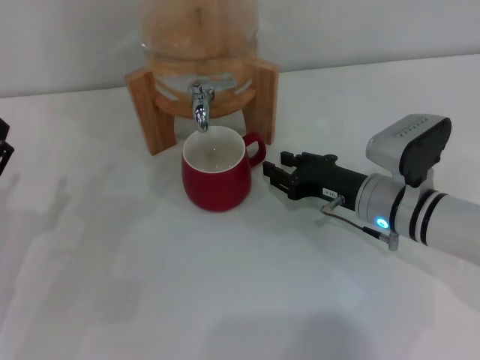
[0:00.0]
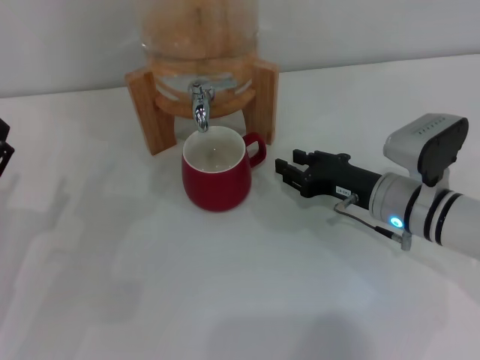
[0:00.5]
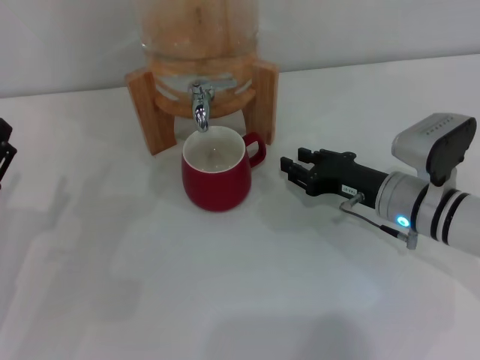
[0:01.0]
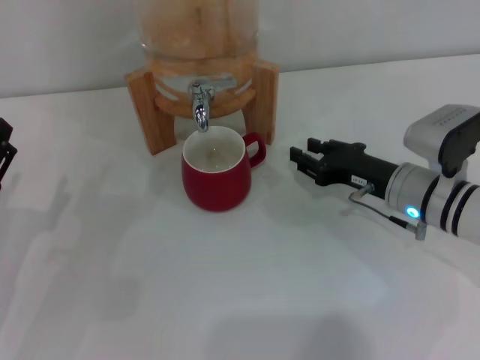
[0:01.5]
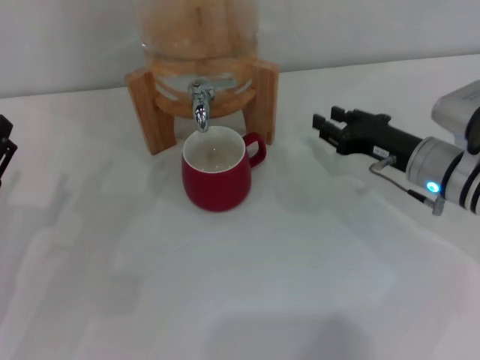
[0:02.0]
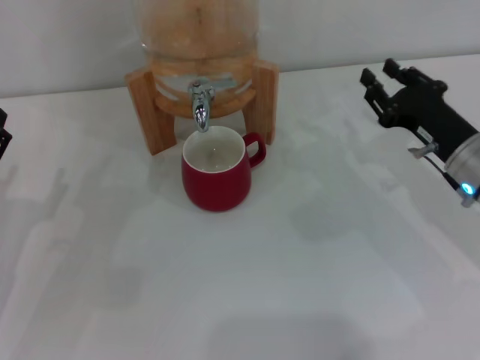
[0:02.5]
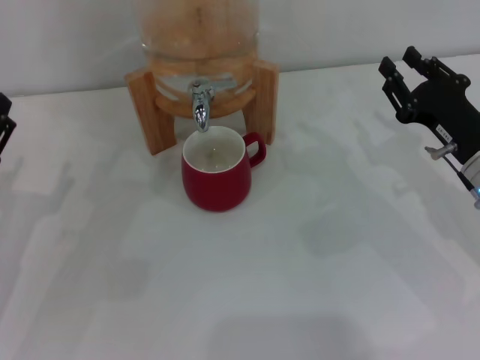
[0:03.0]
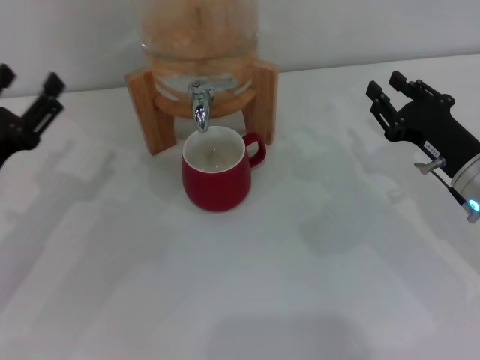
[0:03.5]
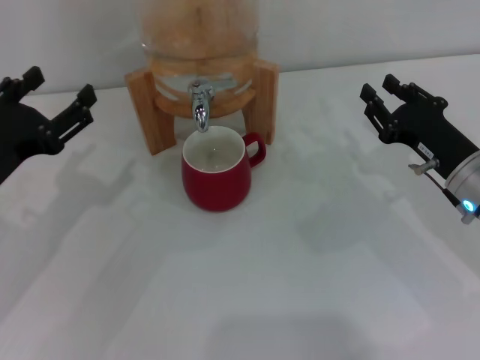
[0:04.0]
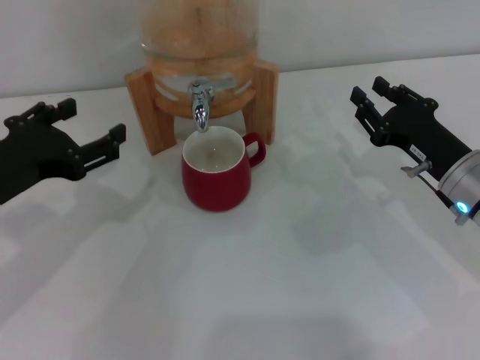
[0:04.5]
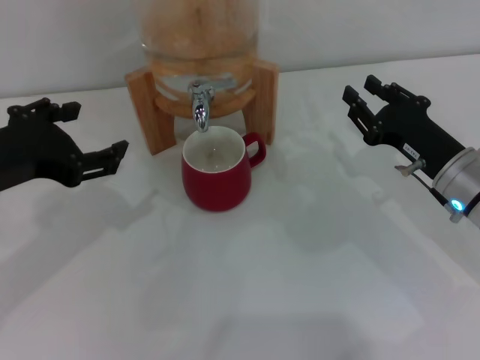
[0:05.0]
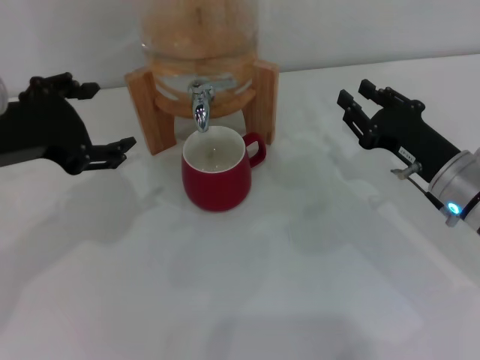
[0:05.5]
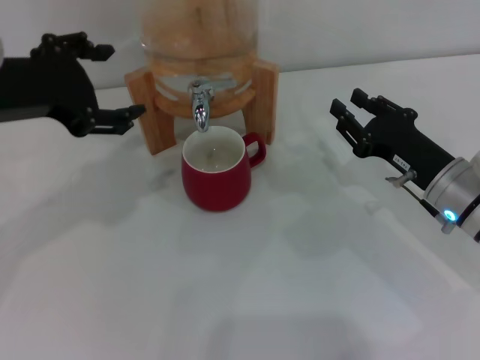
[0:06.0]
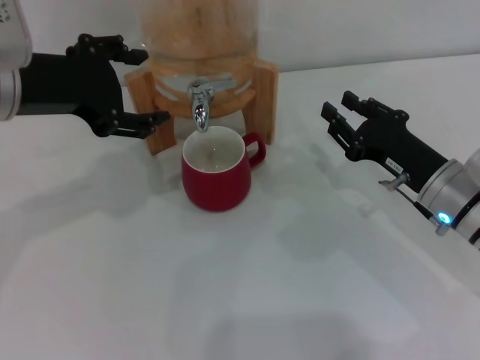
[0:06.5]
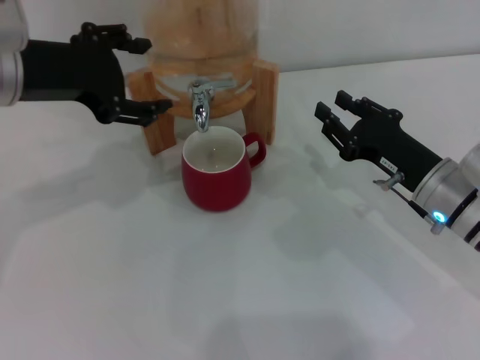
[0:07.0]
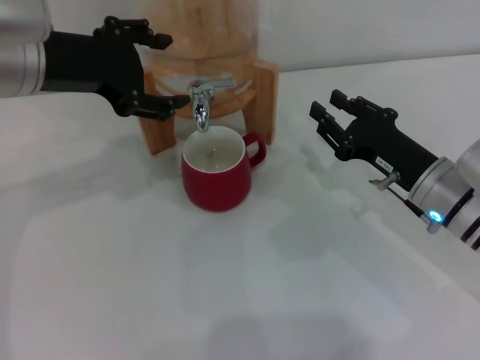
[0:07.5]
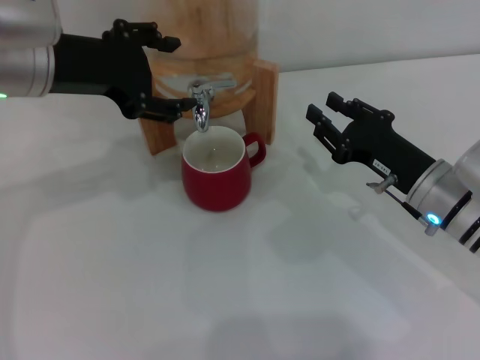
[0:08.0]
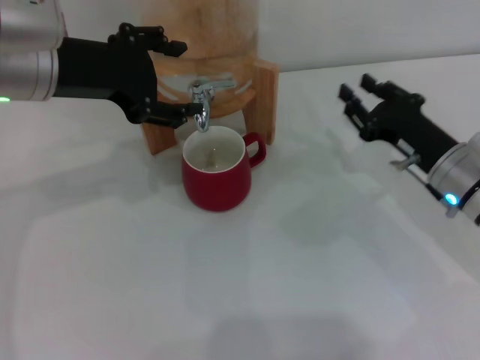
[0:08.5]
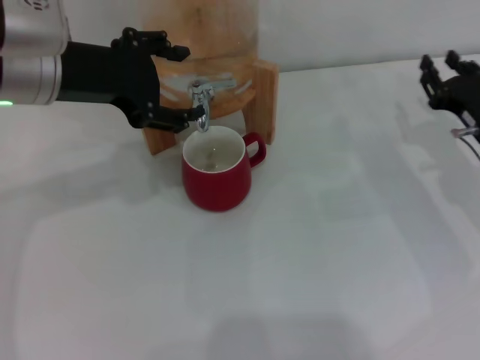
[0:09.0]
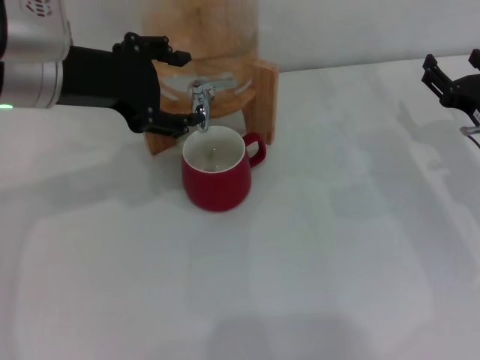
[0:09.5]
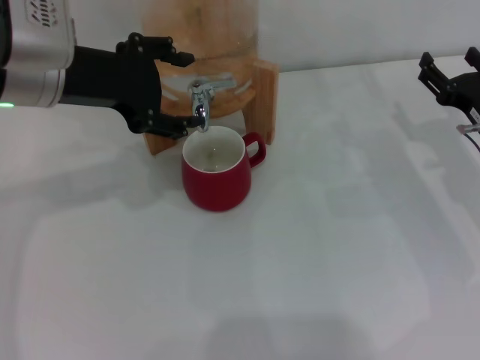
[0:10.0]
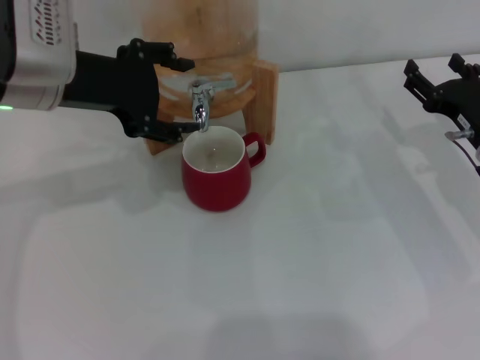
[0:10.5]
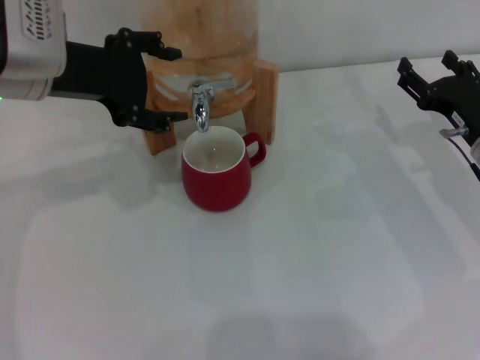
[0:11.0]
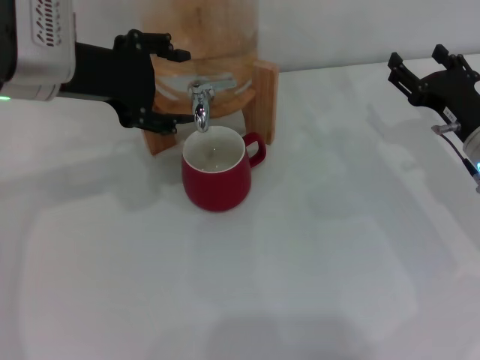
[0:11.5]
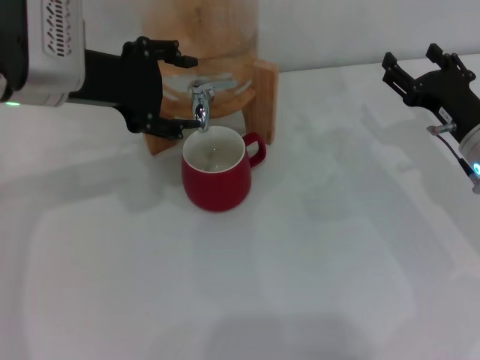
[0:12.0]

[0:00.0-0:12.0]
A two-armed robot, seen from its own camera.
Task of the whole recording: the right gripper pick up the red cup and place it horizontally under the faucet, the left gripper turn on the faucet to fill the cup, and then turn off the faucet.
0:00.0 to 0:02.0: The right gripper goes about 5 cm to the right.
0:02.0 to 0:04.0: The left gripper moves upward, some 5 cm.
0:04.0 to 0:06.0: The left gripper shifts approximately 15 cm upward and to the right.
0:06.0 to 0:08.0: The left gripper travels forward by roughly 5 cm.
0:08.0 to 0:10.0: The right gripper shifts roughly 10 cm to the right, and opens up.
0:10.0 to 0:12.0: The grippers stay close to where they were, moving slightly.

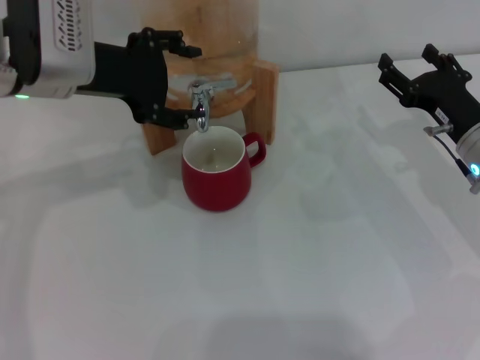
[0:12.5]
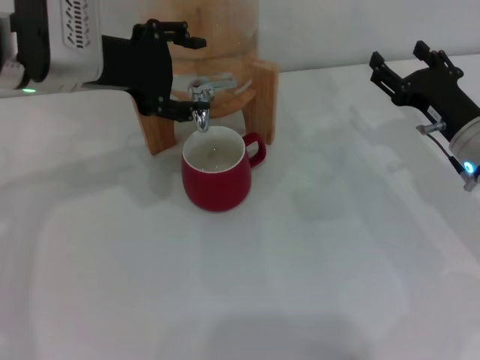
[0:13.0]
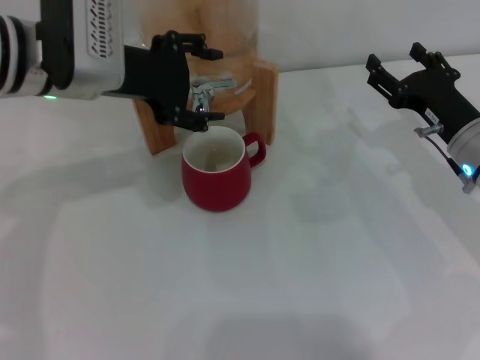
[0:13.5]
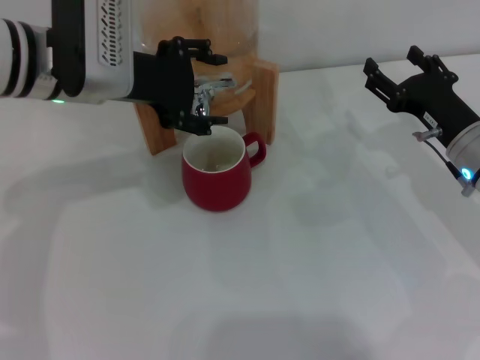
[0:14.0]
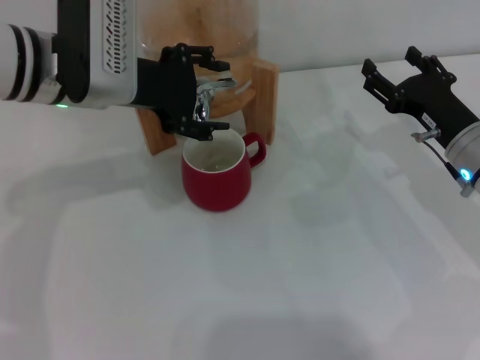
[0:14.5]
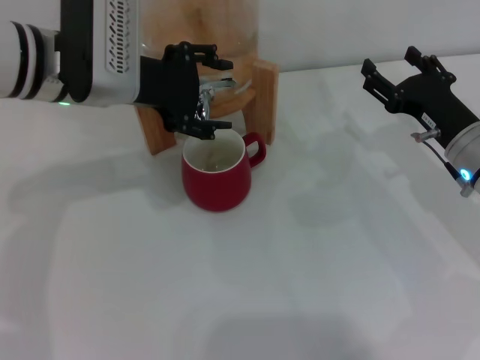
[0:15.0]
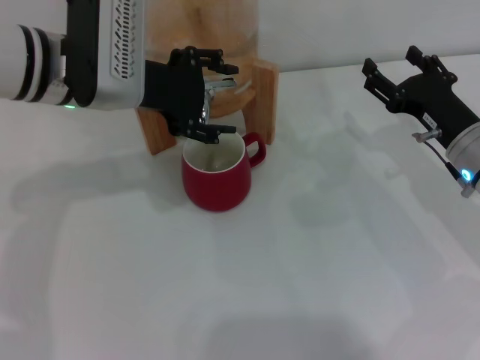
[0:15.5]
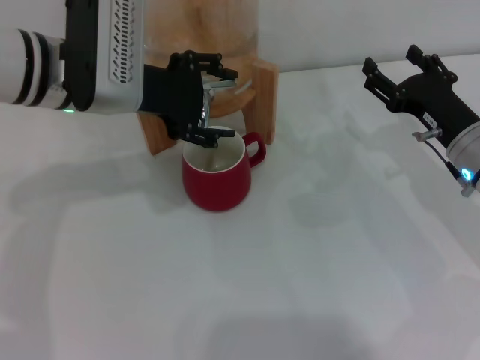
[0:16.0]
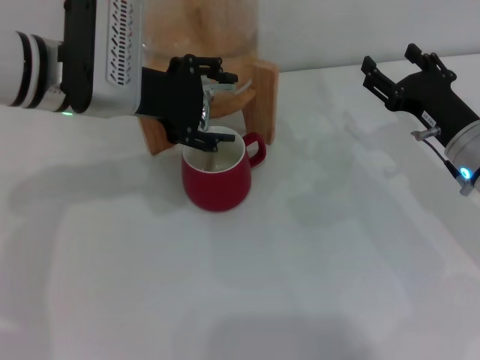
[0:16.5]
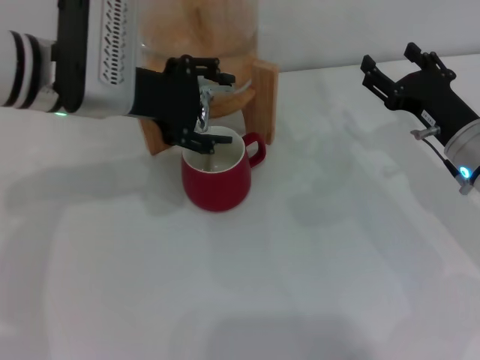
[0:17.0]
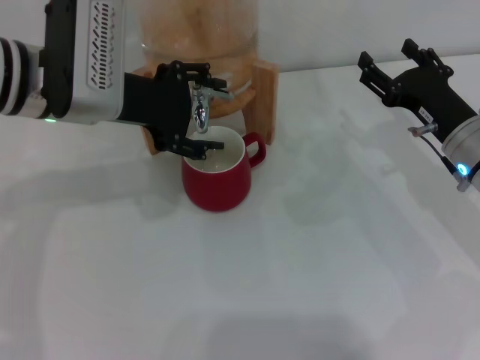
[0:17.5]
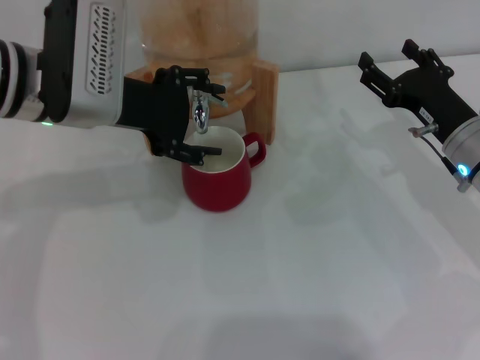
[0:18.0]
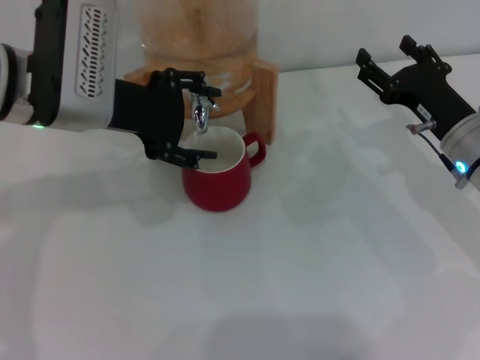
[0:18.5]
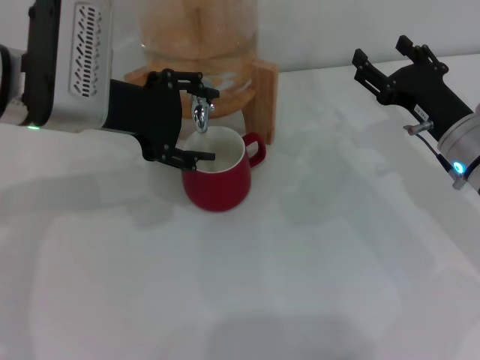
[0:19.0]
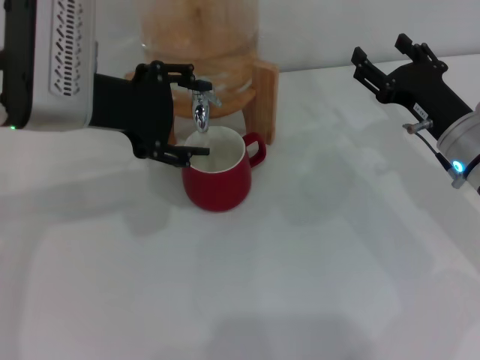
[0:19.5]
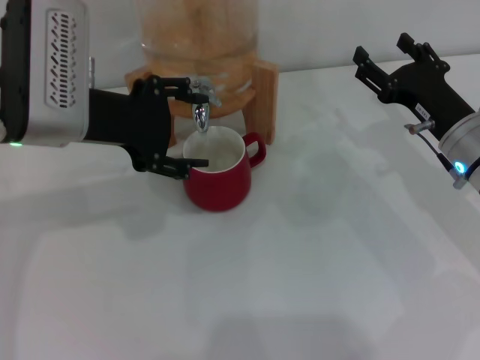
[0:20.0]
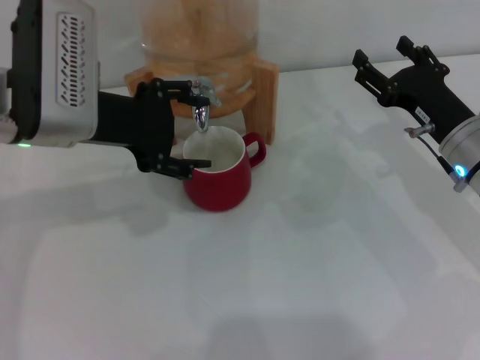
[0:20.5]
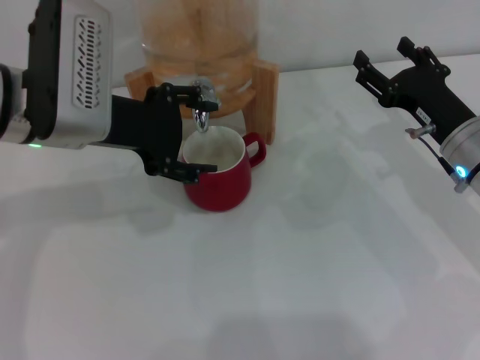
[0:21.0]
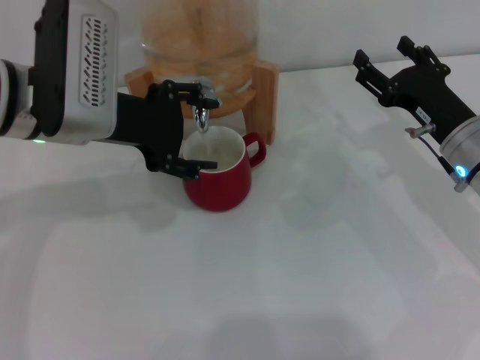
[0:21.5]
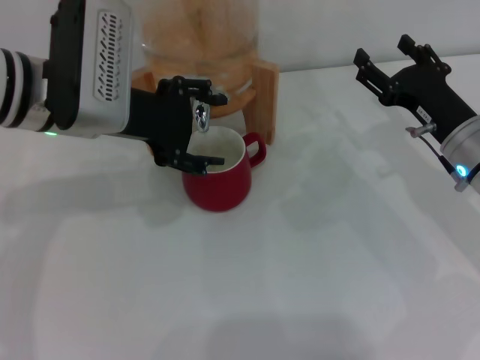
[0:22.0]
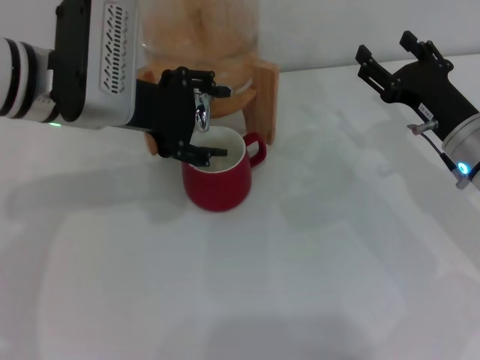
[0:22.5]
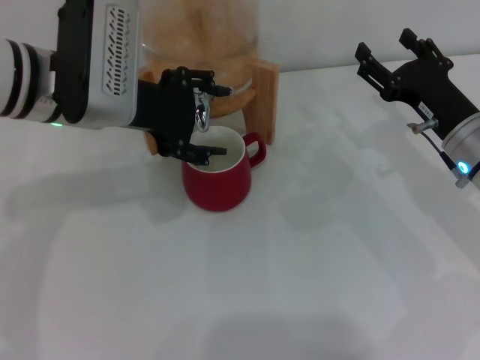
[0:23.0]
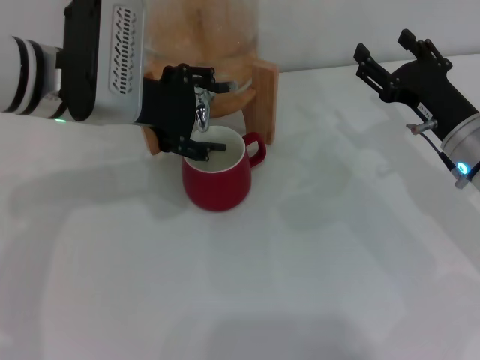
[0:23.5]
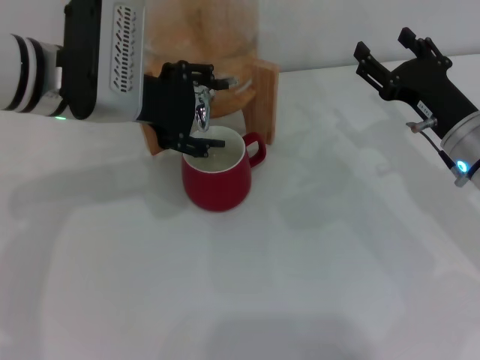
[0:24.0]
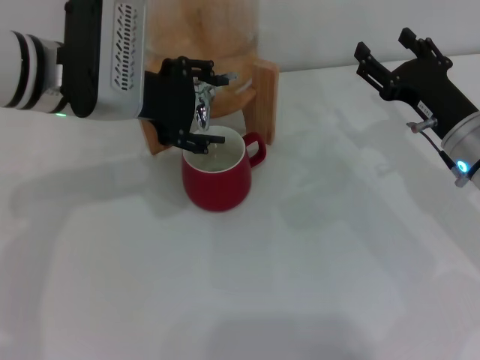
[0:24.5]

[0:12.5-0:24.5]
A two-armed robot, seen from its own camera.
Task of the whole recording: the right gripper pick up the red cup and place it horizontally under the faucet, the left gripper turn on the faucet to fill the cup, and then turn off the faucet.
Step, 0:12.5 to 0:19.0: Open the dispenser valve and fill the cup with water with the left gripper.
0:12.5 to 0:14.5: The grippers make only small movements.
0:14.5 to 0:16.5: The two grippers keep their place.
0:16.5 to 0:22.5: The grippers move only a little.
0:22.5 to 0:24.5: Both grippers stay put.

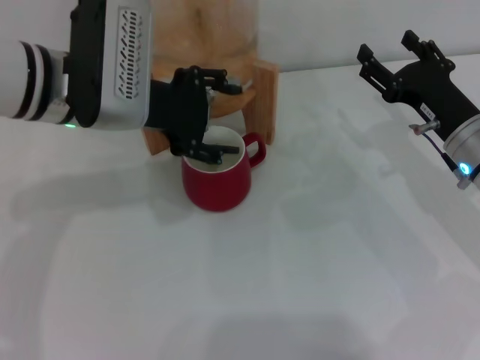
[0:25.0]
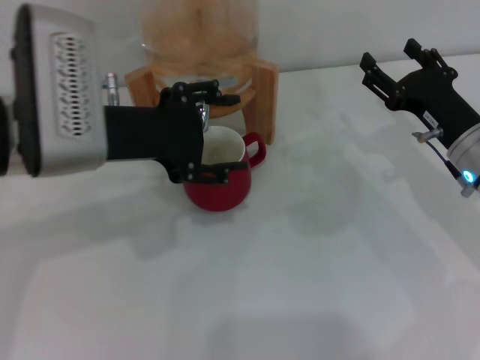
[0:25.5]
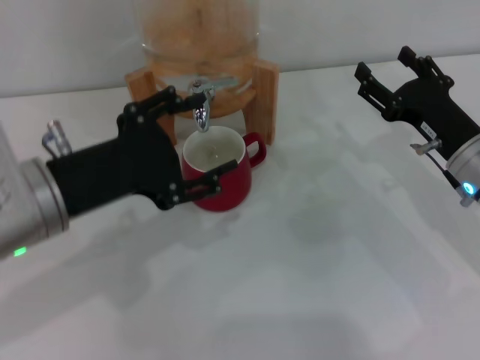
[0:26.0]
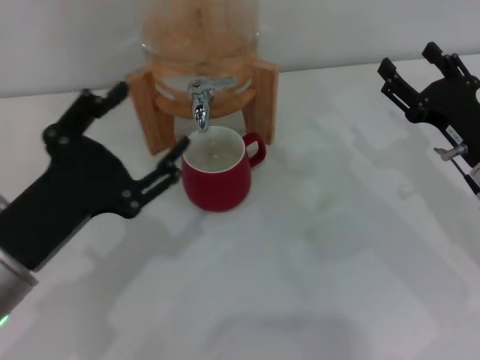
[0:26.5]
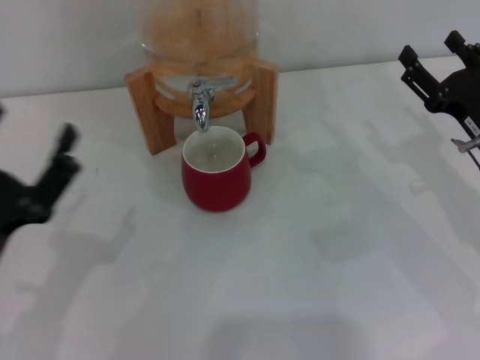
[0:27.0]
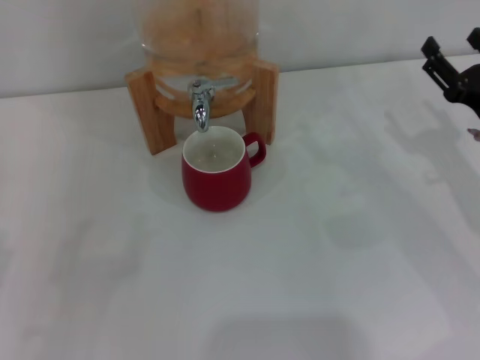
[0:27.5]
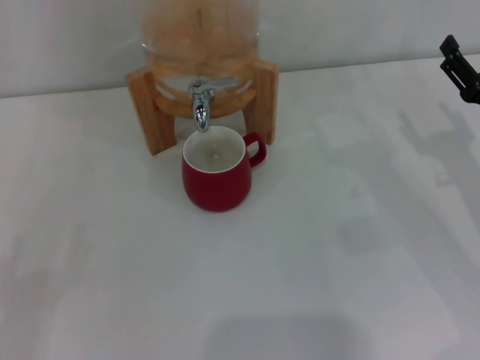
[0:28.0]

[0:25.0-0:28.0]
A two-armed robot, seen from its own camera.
Task of the whole recording: the right gripper pick up the red cup and place it horizontally under the faucet, the left gripper turn on the faucet to fill the cup, and then turn off the faucet.
0:25.0 to 0:26.5: The left gripper heads backward and to the left, covering some 20 cm.
0:26.5 to 0:28.0: The left gripper is displaced to the left, downward and backward by roughly 20 cm.
